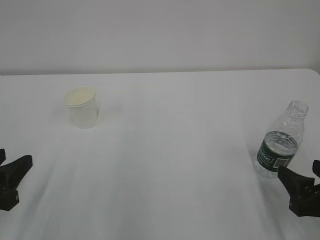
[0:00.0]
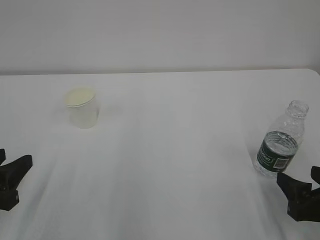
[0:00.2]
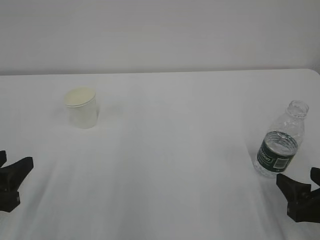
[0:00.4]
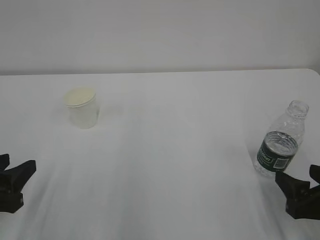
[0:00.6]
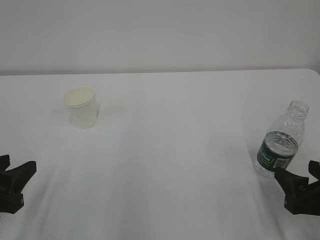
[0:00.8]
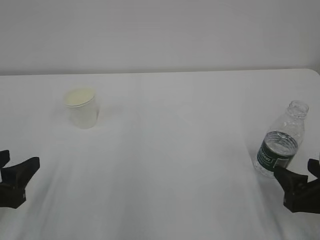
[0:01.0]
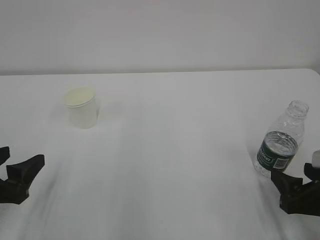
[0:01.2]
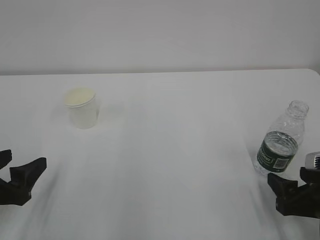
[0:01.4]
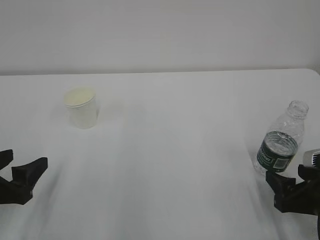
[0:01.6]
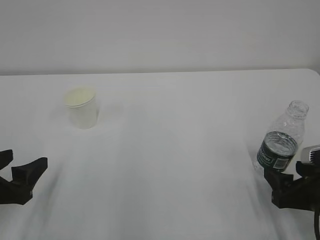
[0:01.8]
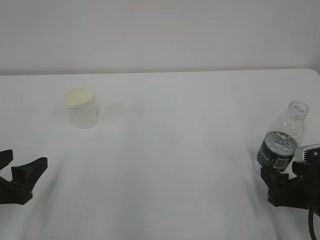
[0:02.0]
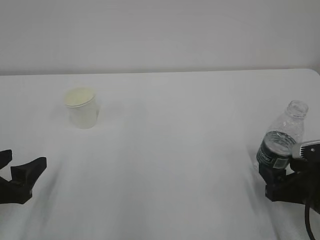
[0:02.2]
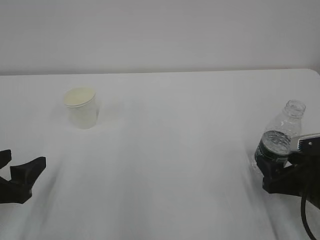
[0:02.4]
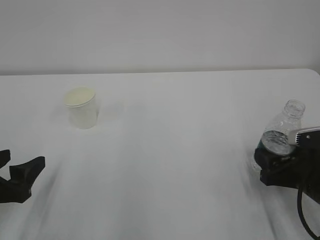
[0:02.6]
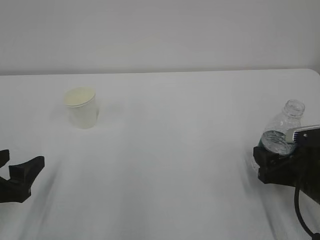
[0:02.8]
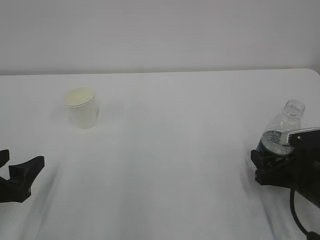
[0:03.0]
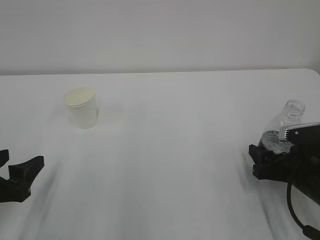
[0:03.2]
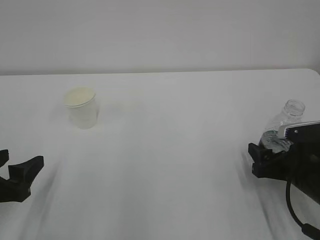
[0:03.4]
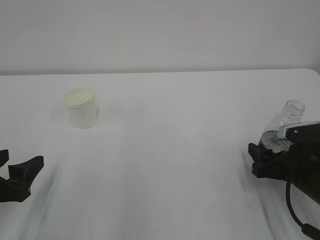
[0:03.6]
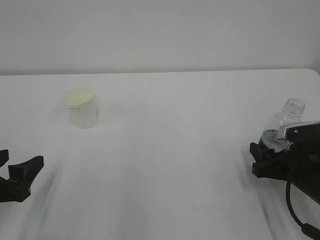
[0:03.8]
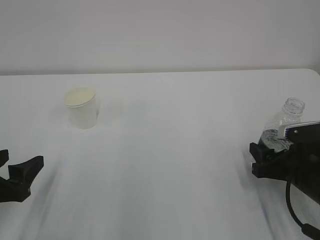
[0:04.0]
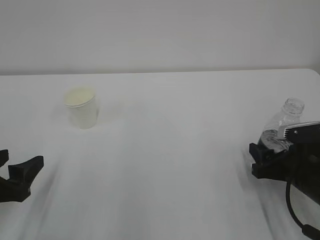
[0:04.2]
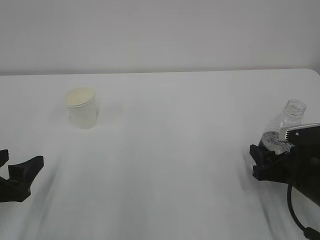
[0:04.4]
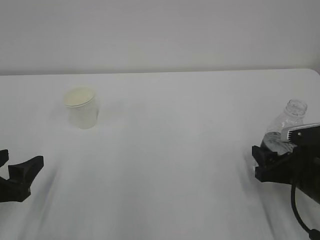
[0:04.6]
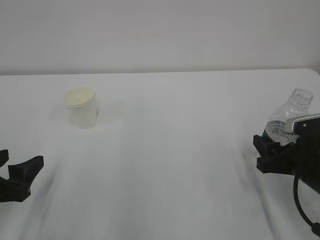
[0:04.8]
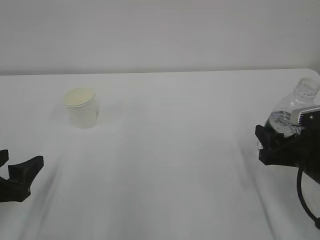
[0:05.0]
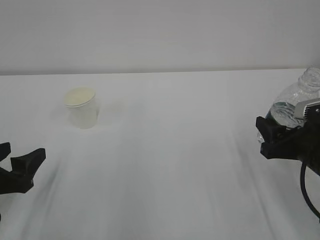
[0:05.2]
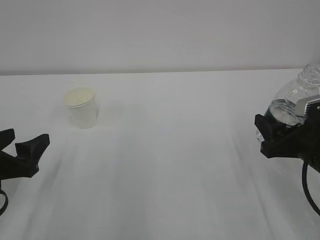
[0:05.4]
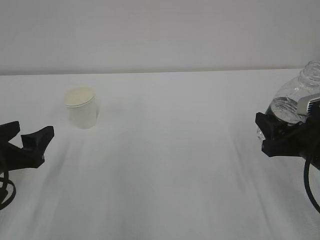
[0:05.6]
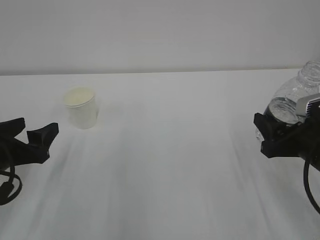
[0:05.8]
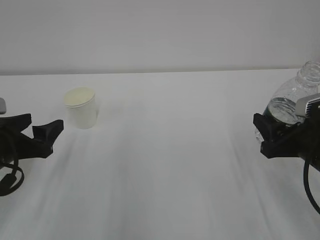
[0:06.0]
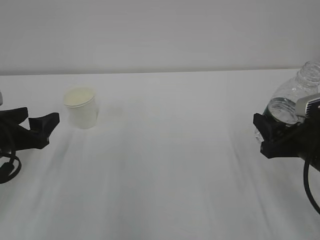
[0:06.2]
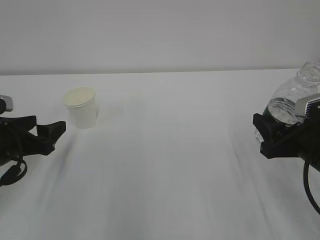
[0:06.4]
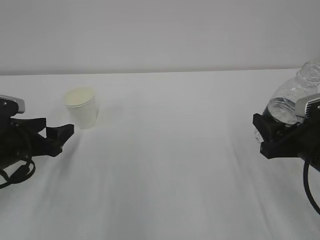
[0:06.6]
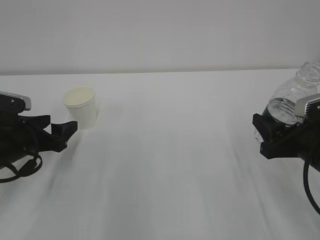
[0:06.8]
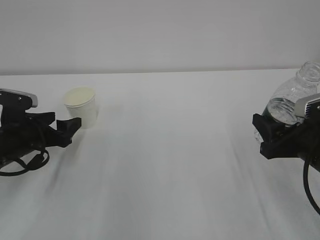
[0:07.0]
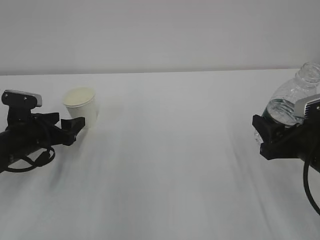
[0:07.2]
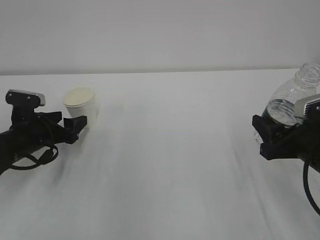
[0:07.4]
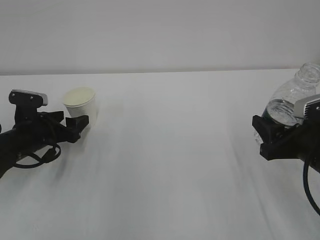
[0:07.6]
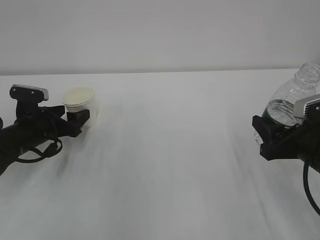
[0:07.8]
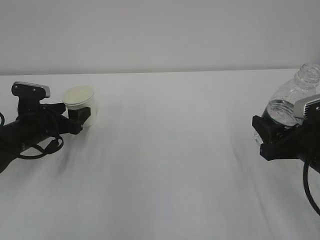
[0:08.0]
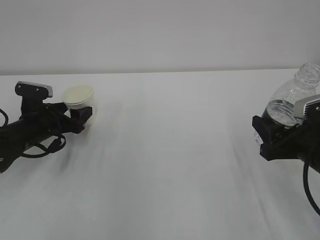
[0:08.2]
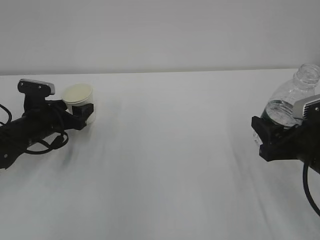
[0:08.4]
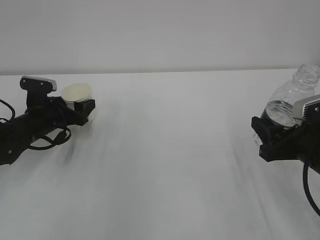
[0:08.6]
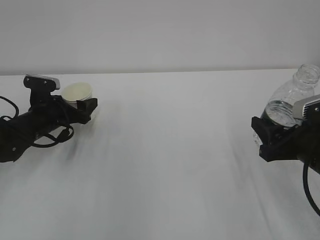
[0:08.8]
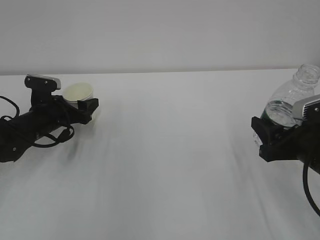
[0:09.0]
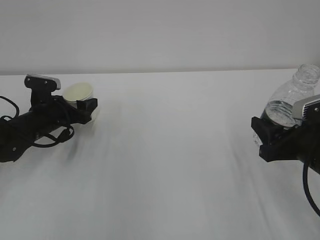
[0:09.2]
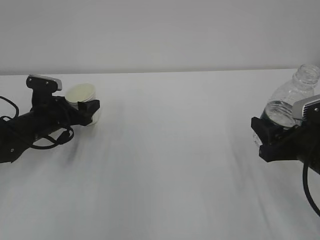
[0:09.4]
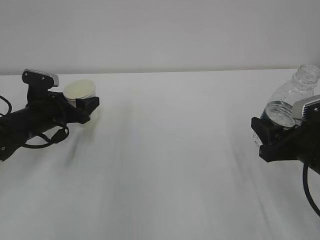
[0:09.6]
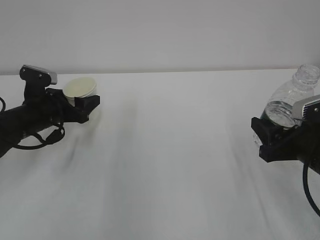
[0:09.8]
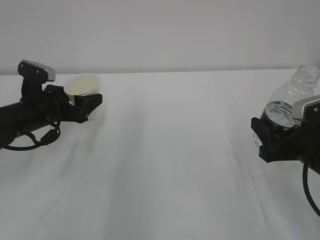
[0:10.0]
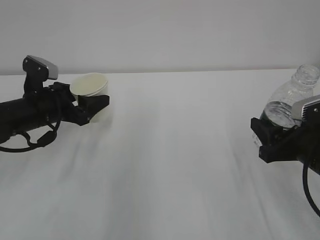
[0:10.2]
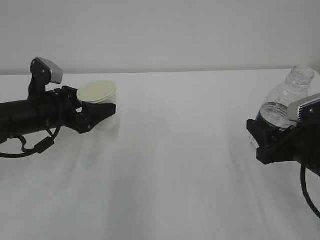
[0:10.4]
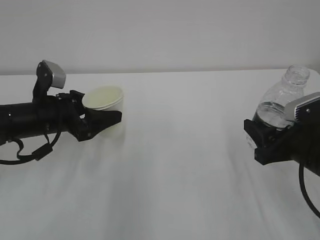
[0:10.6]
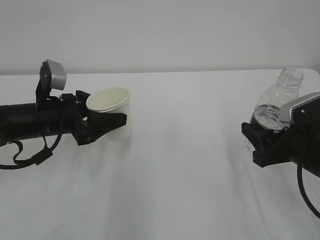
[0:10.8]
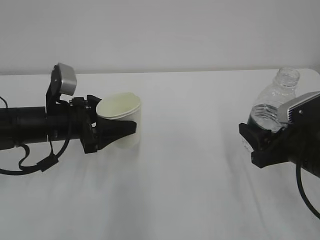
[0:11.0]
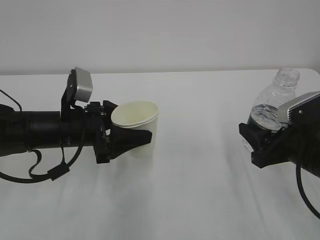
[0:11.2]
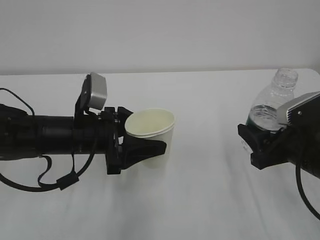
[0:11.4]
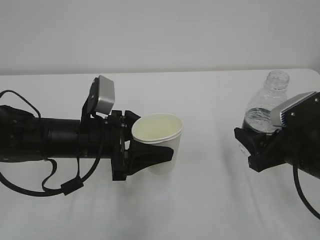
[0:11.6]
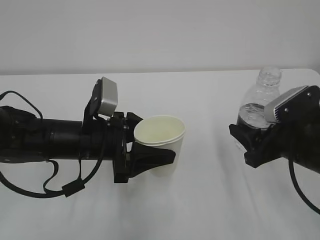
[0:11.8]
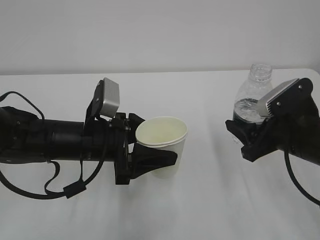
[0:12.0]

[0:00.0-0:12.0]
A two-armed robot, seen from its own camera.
0:00.0 to 0:01.6: The left gripper opens its fingers.
0:01.6 to 0:03.0: The right gripper goes roughly 5 cm forward.
0:03.0 to 0:04.4: The right gripper closes its fingers.
0:04.4 to 0:06.0: The right gripper moves upward, roughly 5 cm. Meanwhile the left gripper moves forward, about 5 cm.
0:06.0 to 0:07.6: The left gripper heads forward and downward, covering approximately 10 cm.
0:07.6 to 0:09.0: The left gripper goes about 5 cm forward.
0:09.0 to 0:10.4: The left gripper is displaced upward and backward by about 10 cm, and closes.
0:10.4 to 0:12.0: The left gripper is displaced to the right and backward by about 10 cm.

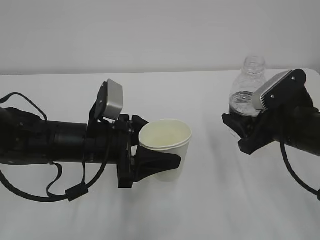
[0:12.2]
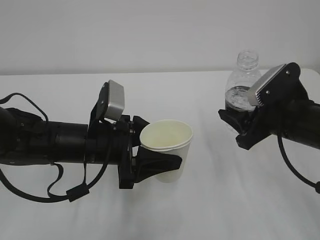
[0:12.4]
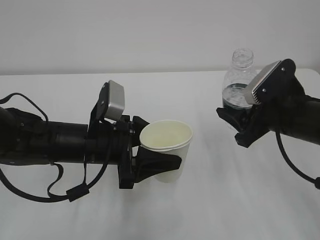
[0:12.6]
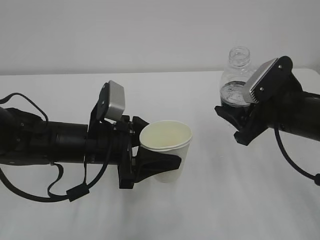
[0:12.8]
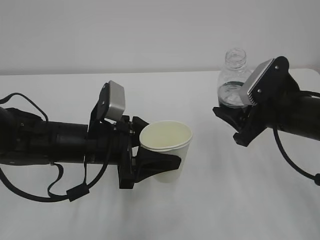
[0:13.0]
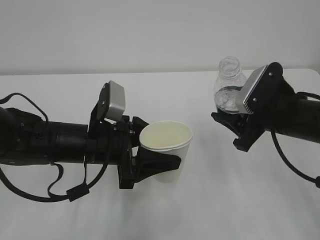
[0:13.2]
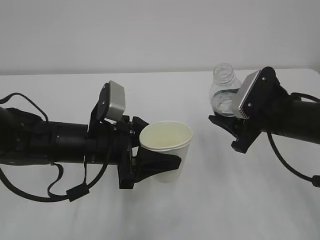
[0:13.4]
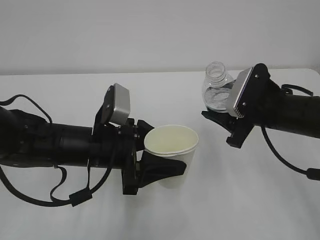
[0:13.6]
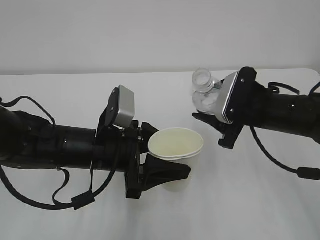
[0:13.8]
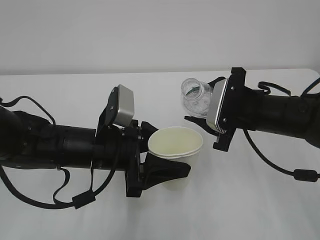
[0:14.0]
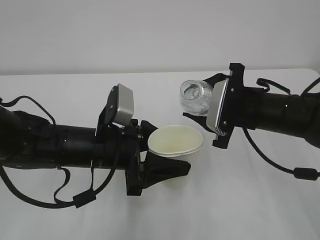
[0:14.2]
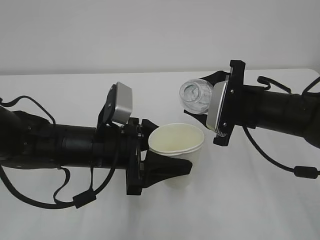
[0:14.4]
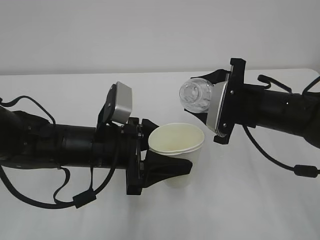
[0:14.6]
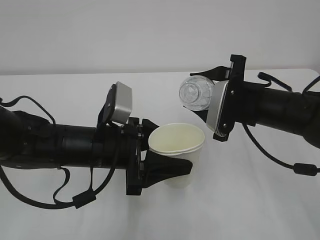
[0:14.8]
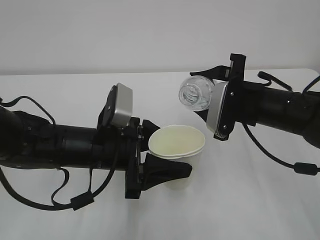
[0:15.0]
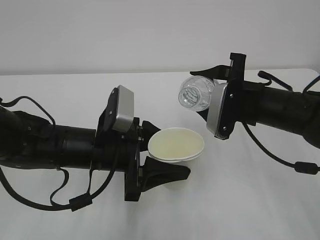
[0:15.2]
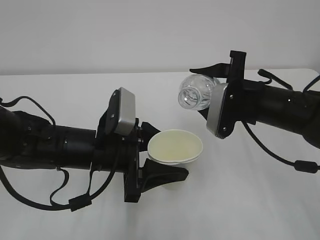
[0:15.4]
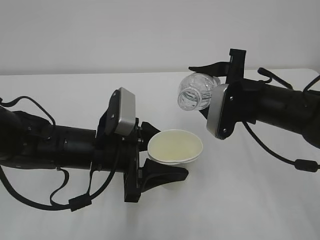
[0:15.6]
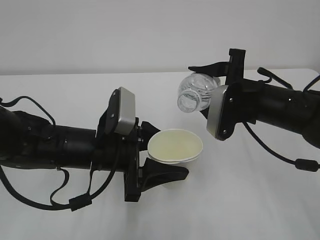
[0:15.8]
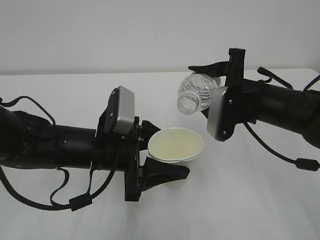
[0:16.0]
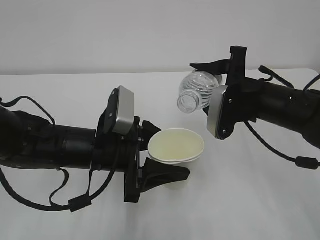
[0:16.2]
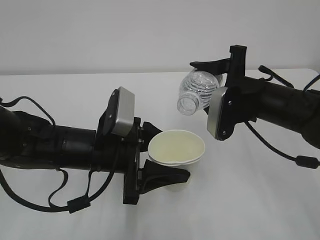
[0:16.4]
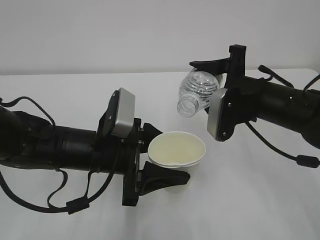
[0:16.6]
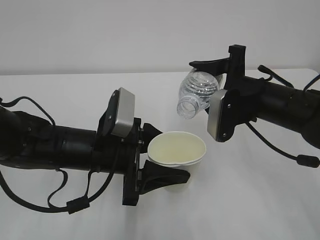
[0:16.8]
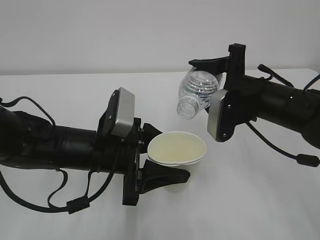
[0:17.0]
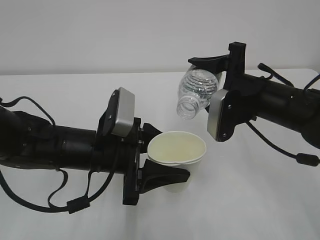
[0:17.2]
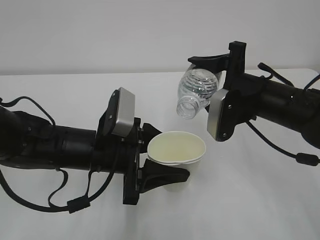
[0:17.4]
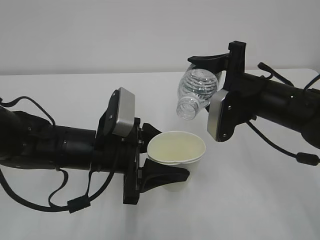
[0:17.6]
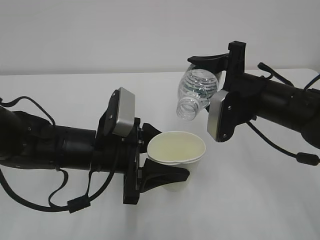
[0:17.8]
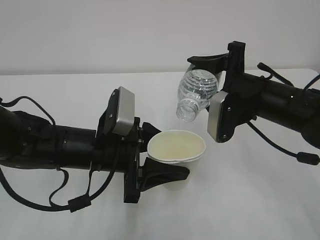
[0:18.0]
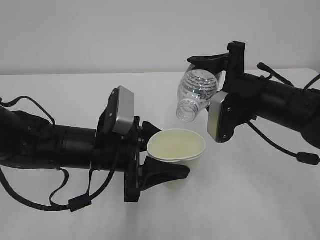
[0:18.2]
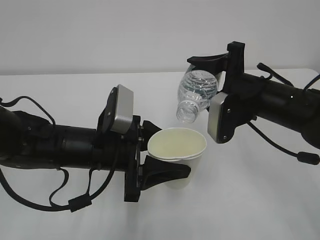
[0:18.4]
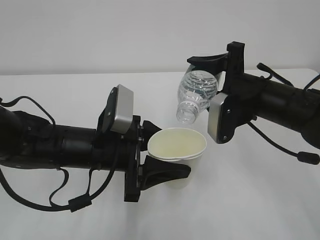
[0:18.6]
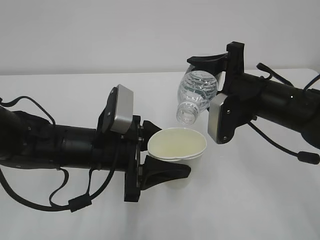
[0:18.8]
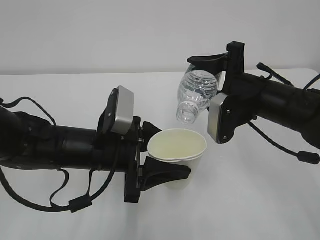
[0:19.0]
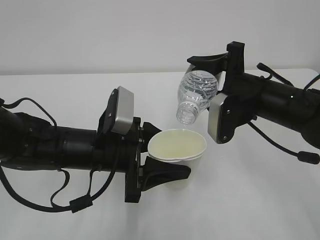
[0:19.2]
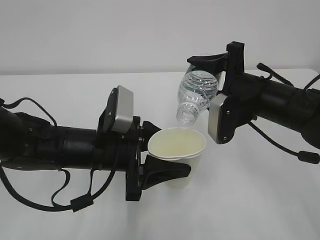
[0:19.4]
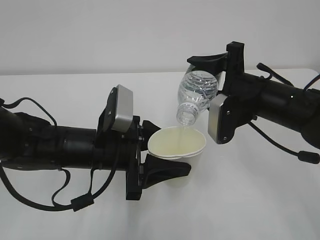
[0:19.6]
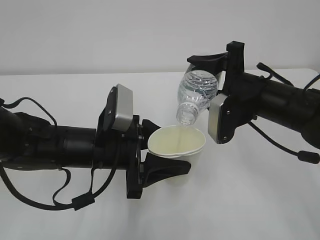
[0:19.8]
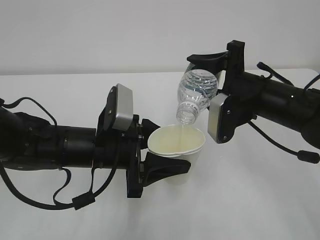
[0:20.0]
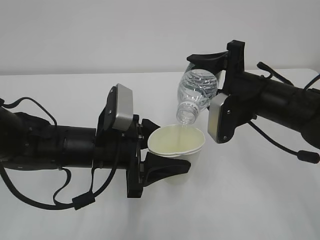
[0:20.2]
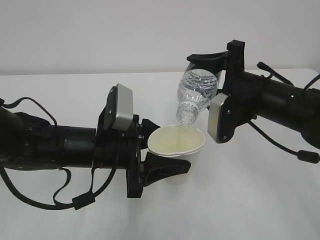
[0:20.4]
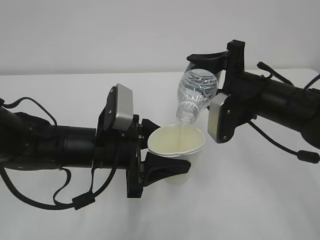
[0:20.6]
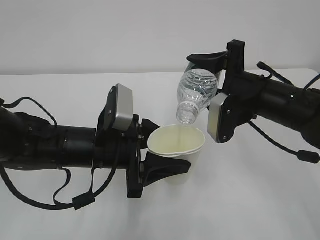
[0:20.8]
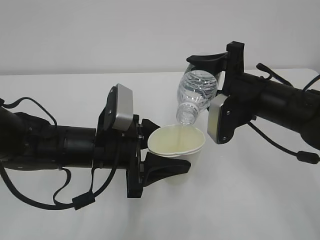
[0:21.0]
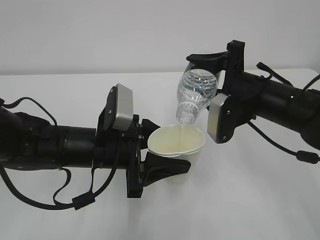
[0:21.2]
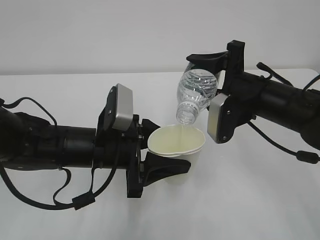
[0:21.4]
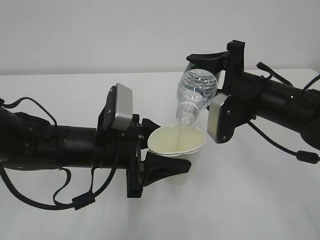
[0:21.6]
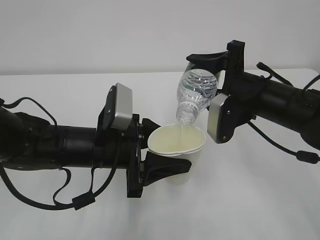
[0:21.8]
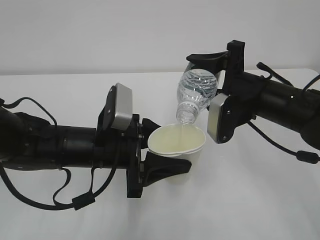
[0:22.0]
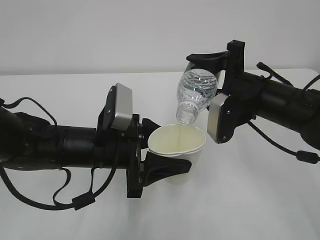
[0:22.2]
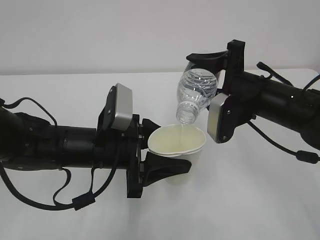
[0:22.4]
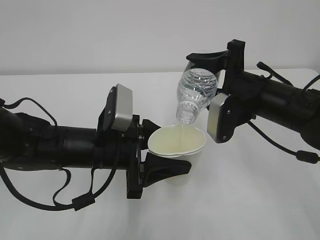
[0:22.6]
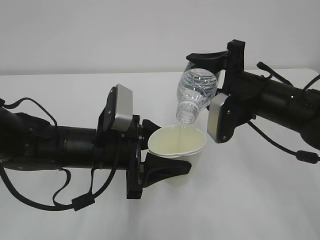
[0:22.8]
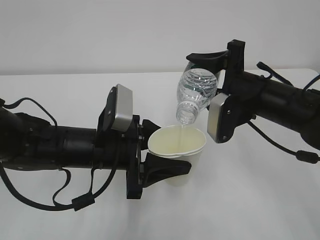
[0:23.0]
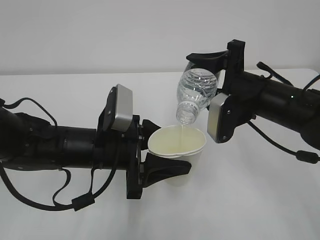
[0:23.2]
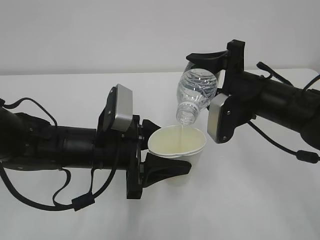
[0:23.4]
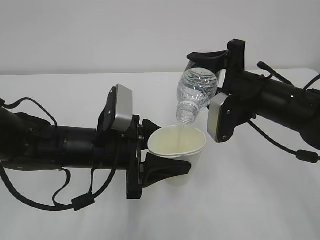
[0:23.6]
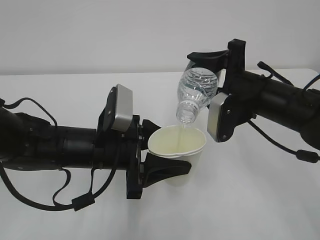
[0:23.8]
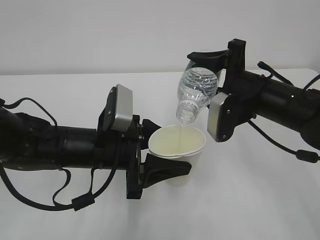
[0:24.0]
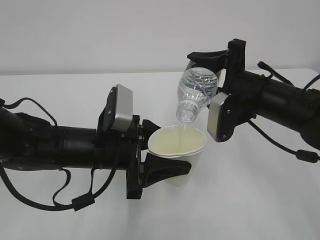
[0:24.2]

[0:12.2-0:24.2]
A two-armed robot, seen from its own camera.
0:12.2 to 0:13.8: The right gripper shifts by about 5 cm.
0:15.2 to 0:16.6: The grippers make only small movements.
0:16.6 to 0:18.2: There are only small adjustments of the grippers.
0:18.2 to 0:24.2: Neither gripper changes place.
